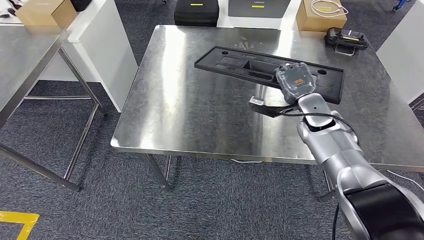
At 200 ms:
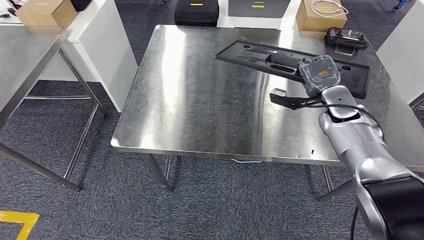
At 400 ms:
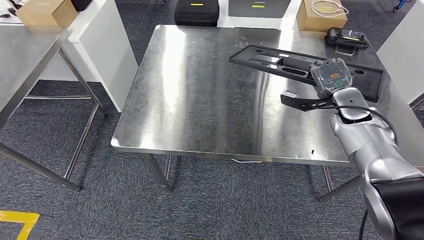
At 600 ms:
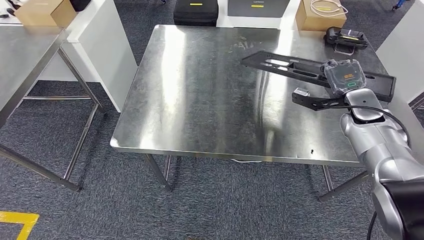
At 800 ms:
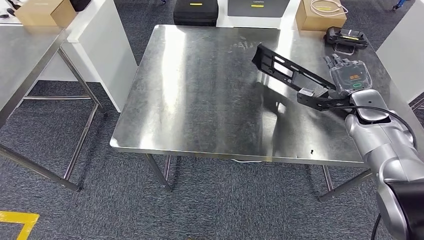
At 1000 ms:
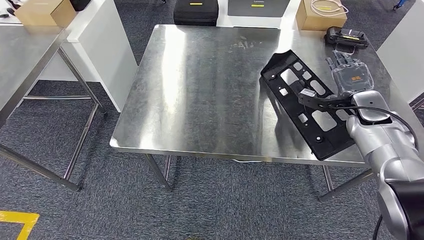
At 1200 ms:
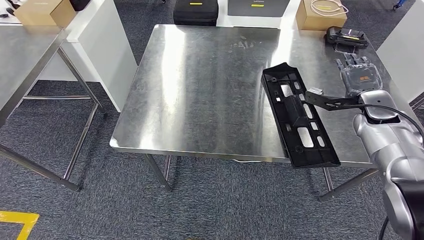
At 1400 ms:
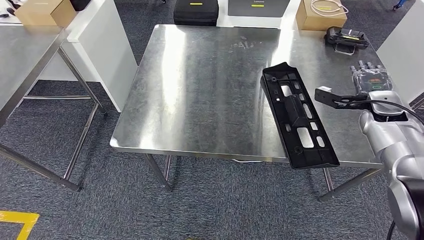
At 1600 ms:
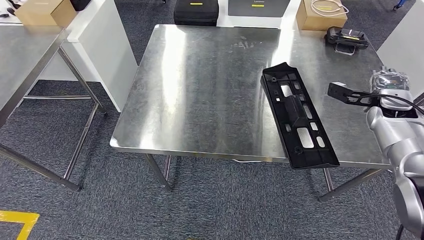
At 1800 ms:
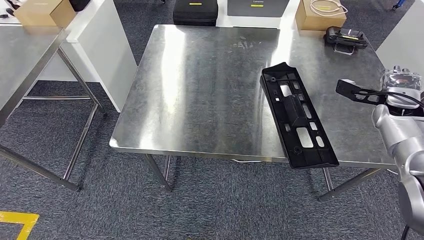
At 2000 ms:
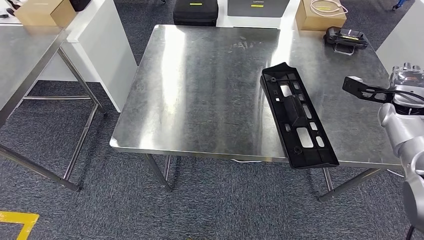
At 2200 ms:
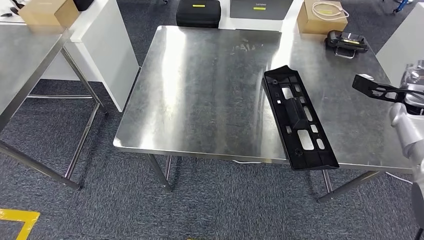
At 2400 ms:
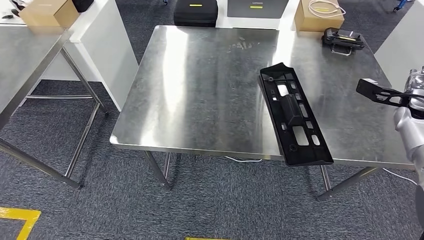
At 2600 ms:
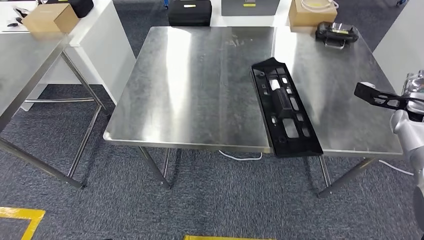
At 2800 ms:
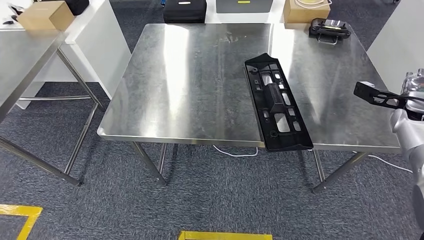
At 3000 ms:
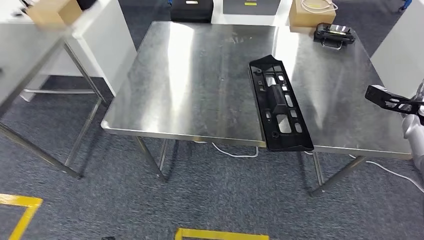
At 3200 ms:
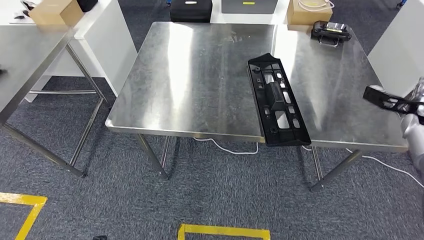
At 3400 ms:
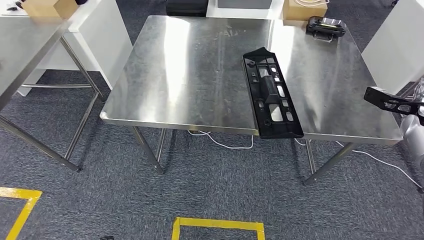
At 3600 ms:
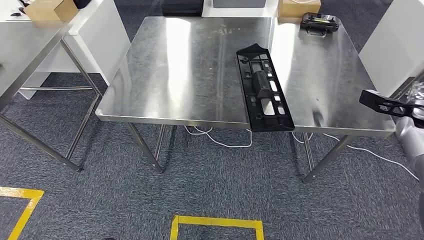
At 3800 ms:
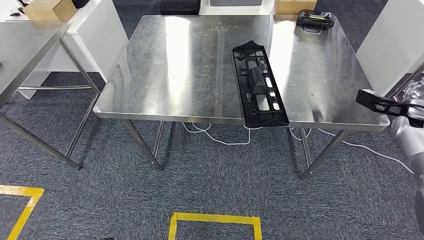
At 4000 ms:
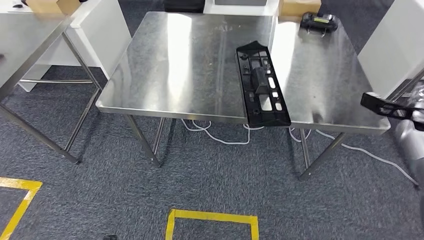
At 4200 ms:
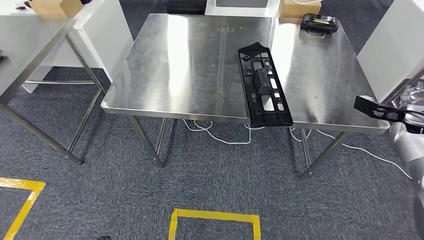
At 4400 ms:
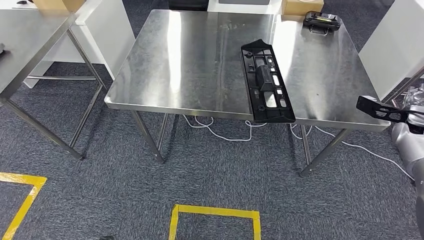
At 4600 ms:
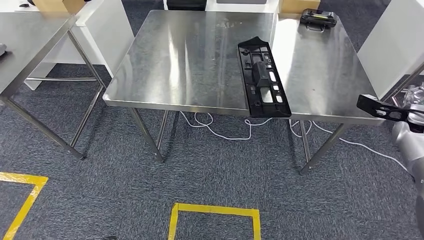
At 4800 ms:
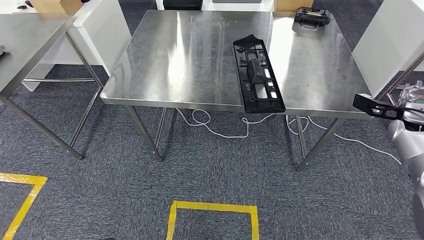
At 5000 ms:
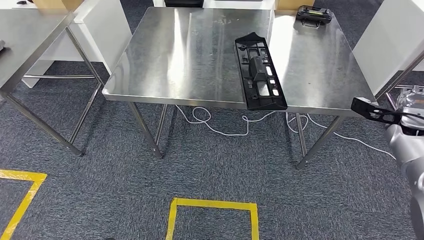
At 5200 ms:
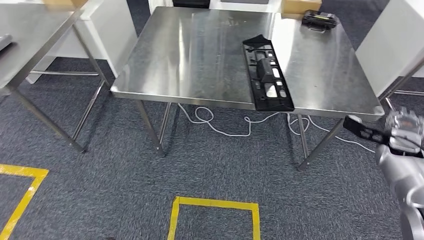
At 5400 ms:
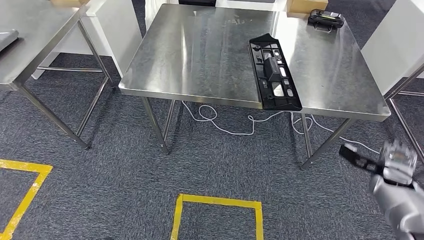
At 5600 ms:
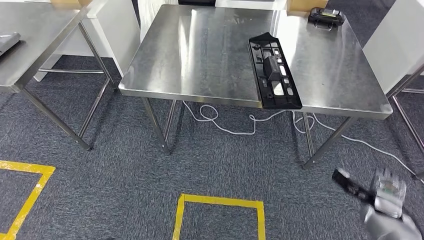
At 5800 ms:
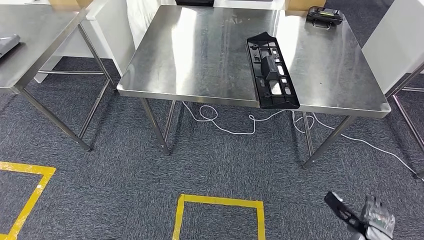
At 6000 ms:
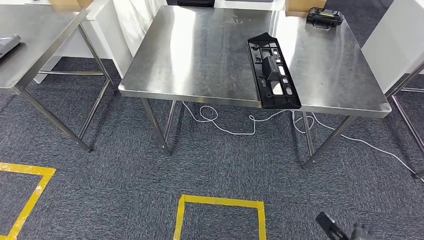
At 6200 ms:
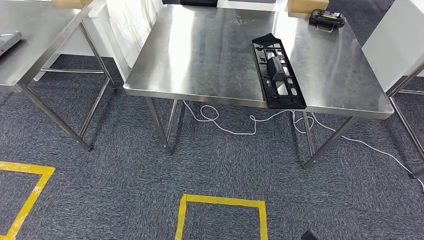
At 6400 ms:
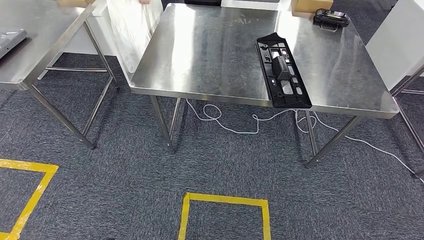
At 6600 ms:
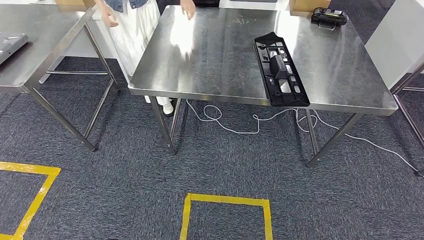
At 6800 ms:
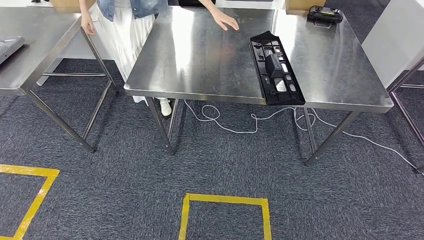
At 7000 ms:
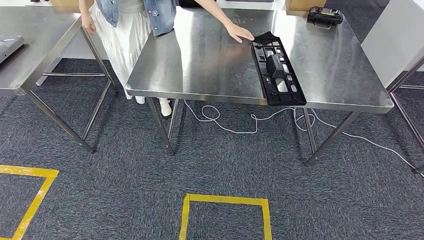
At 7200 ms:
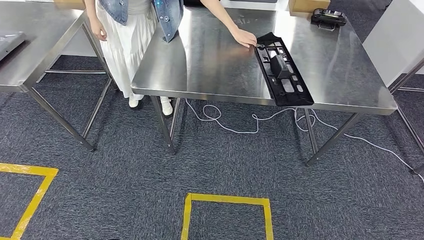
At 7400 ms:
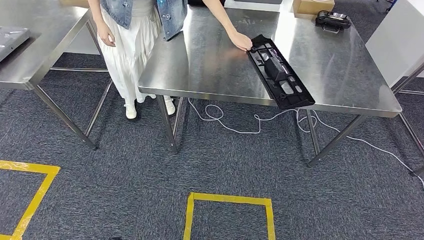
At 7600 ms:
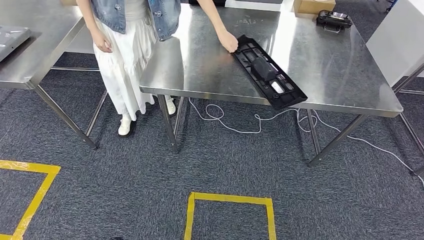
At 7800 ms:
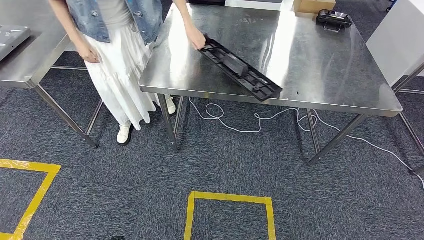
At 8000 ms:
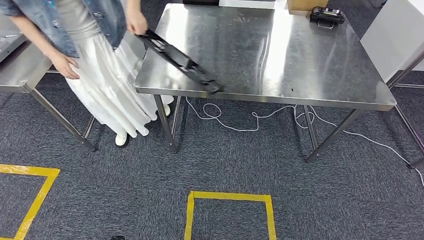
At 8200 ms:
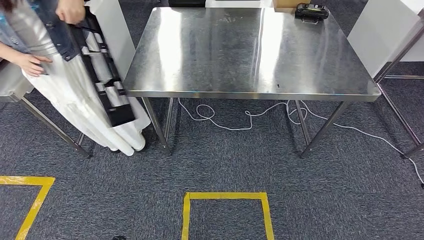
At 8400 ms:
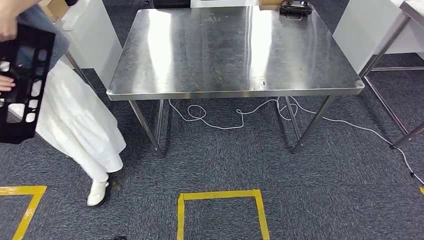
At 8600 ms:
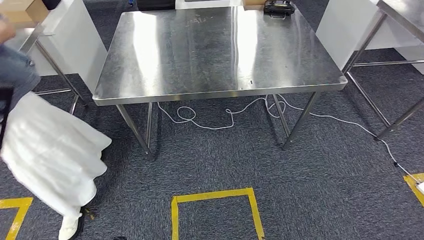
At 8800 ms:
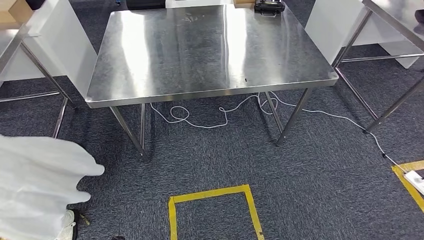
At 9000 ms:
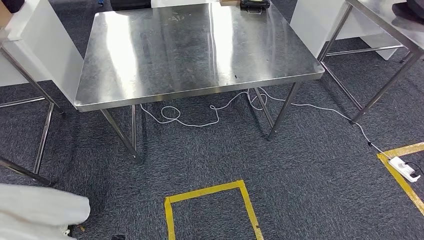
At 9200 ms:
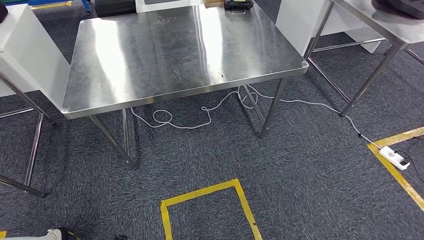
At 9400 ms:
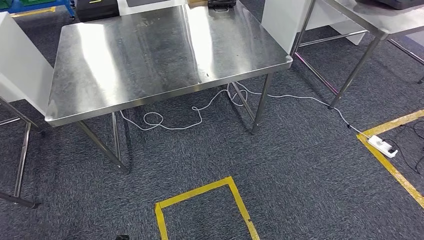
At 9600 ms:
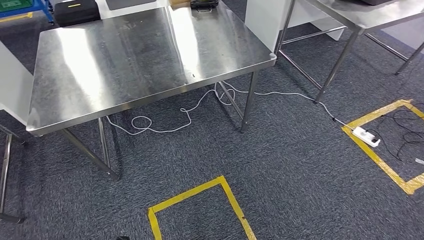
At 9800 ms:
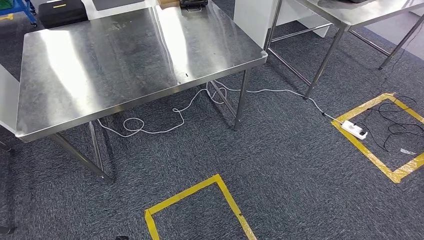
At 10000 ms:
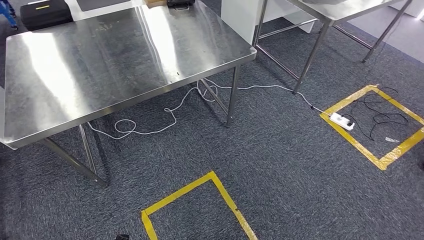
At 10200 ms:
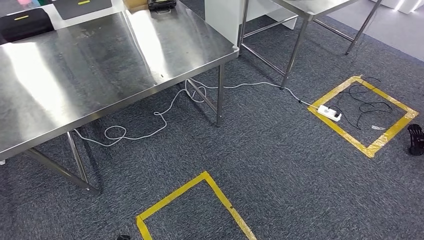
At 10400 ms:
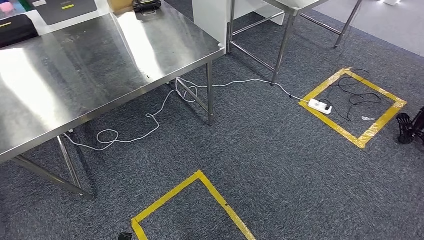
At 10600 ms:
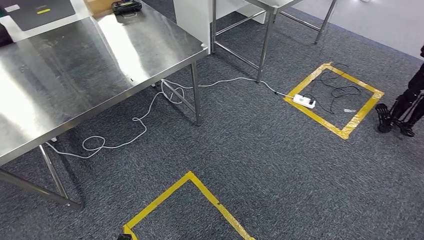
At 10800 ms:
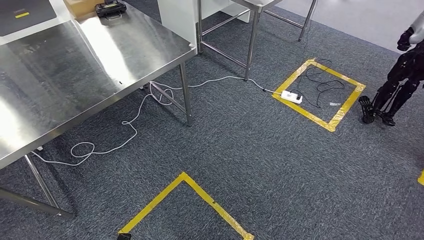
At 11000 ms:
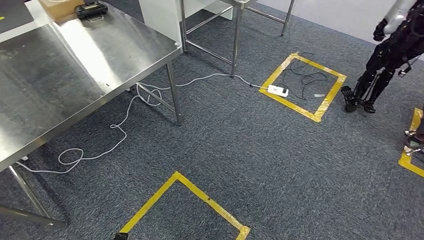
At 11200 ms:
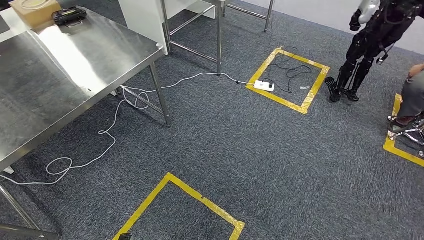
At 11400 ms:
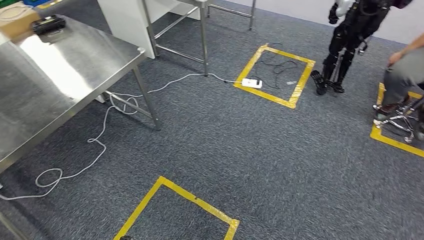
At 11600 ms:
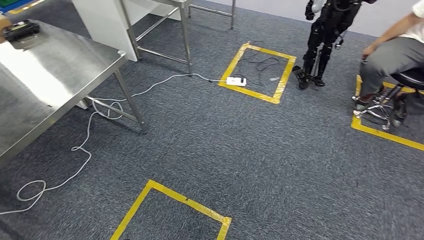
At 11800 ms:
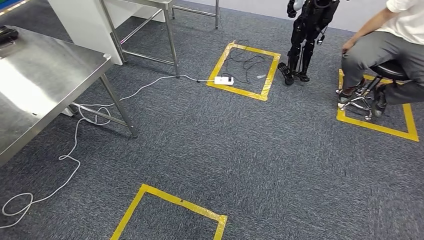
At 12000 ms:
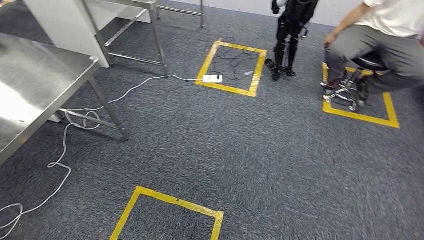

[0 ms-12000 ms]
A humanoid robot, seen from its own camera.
0 ms to 1600 ms: The right hand is displaced to the right by roughly 15 cm.

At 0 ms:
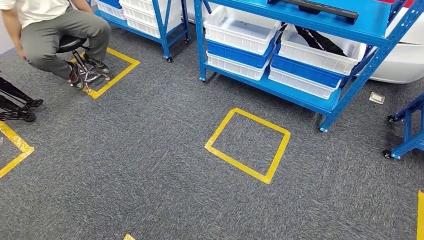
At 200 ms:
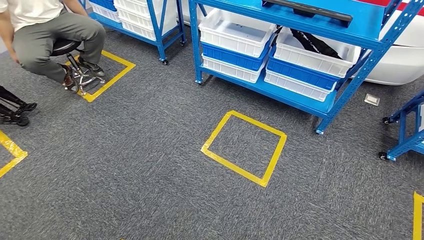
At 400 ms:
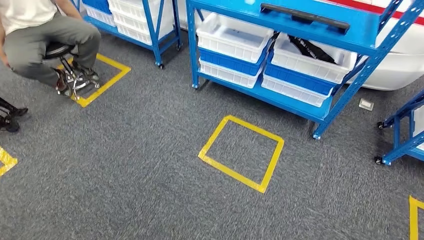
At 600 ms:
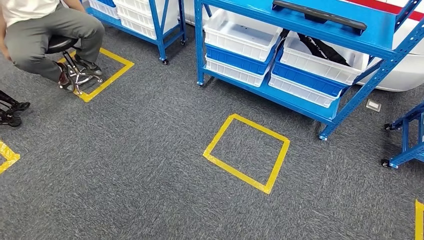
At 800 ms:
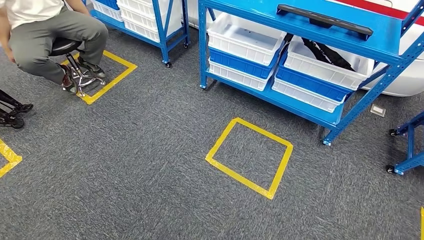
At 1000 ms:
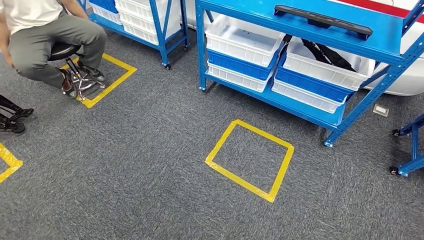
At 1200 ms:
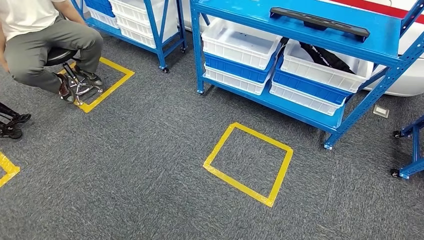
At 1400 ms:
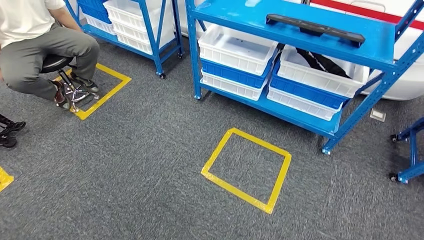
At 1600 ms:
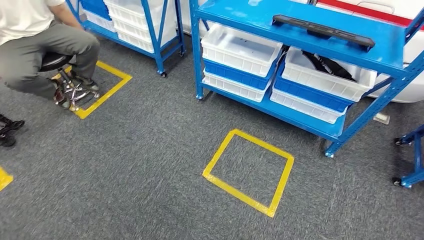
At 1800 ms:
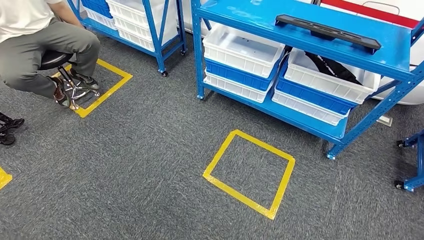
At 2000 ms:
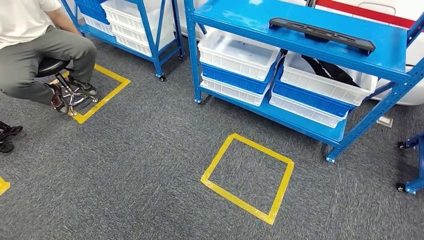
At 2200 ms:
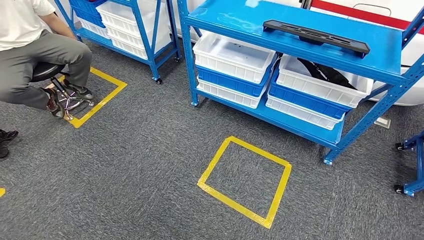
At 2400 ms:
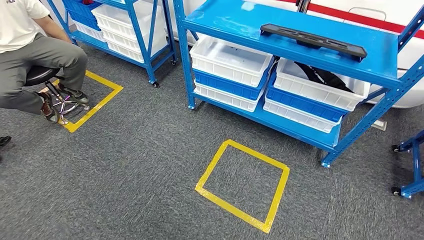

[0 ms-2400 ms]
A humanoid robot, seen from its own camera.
Step, 0 ms to 2400 ms: Move to the initial position of the shelf.
